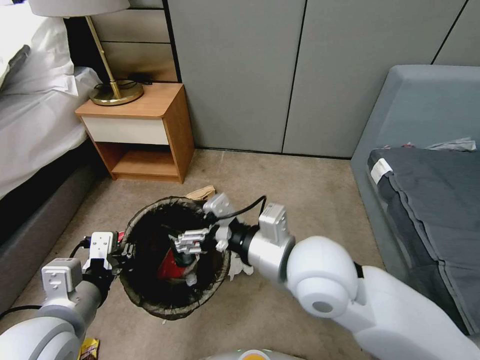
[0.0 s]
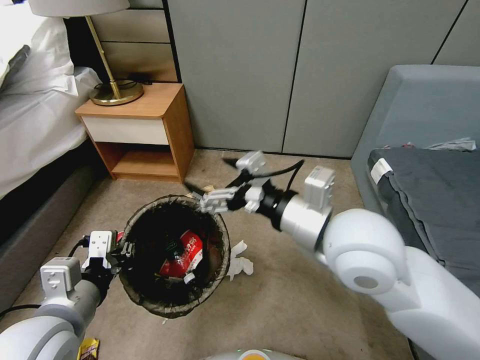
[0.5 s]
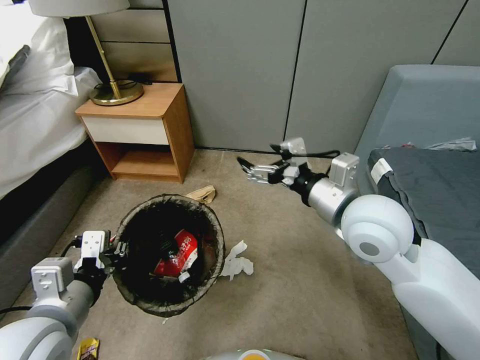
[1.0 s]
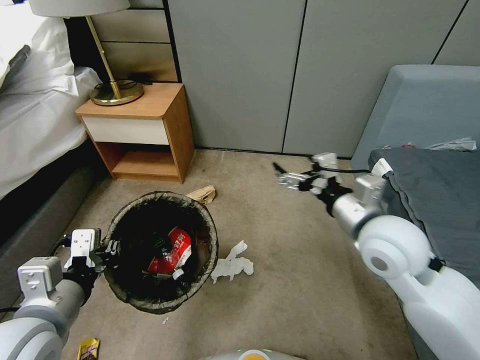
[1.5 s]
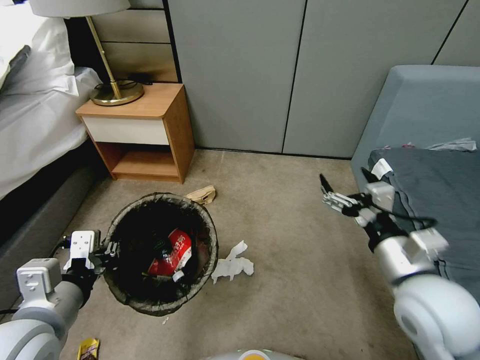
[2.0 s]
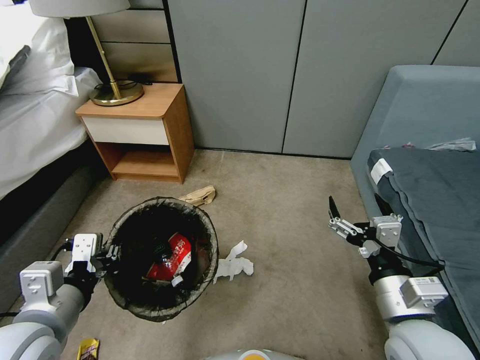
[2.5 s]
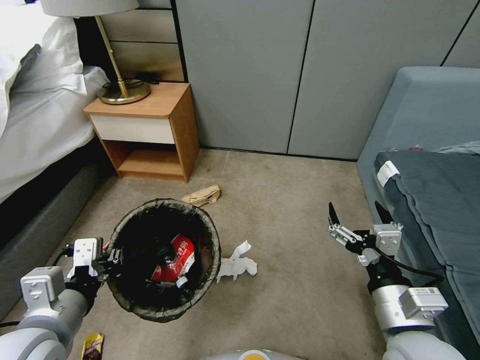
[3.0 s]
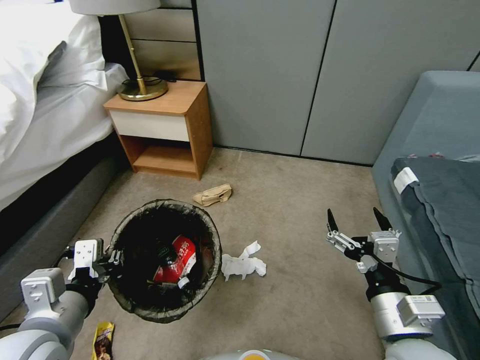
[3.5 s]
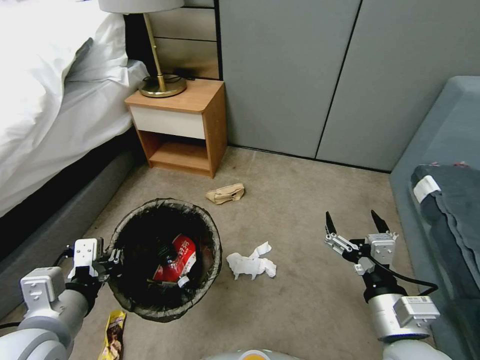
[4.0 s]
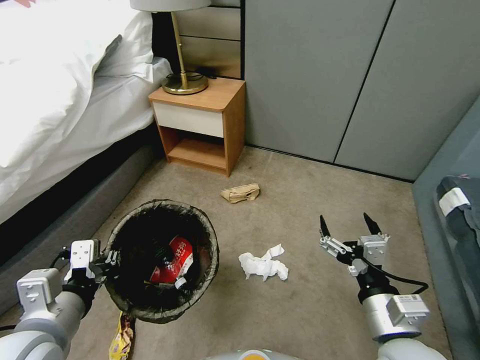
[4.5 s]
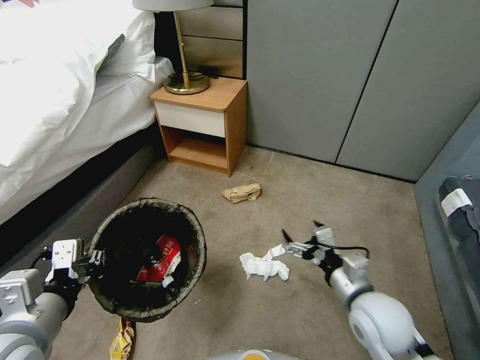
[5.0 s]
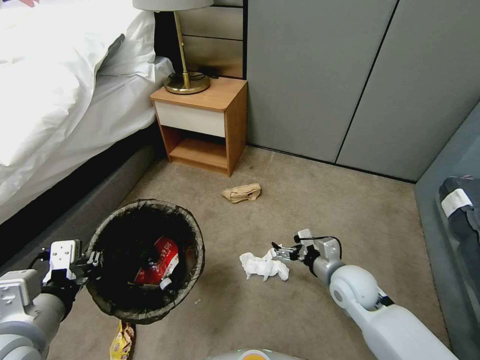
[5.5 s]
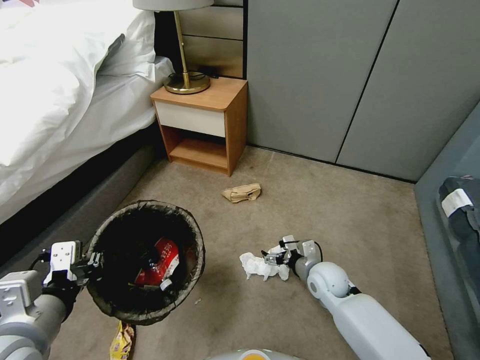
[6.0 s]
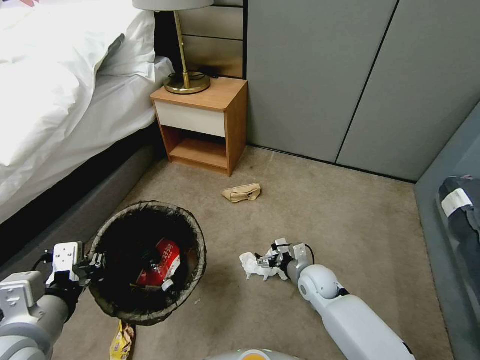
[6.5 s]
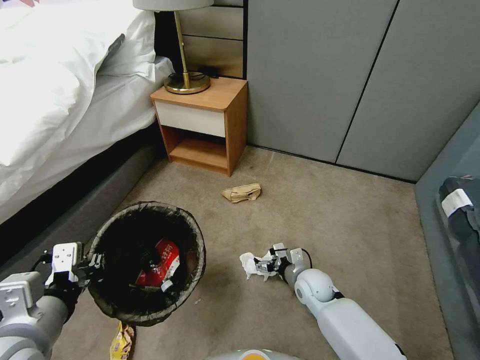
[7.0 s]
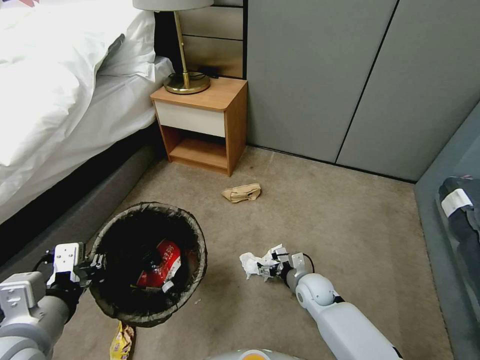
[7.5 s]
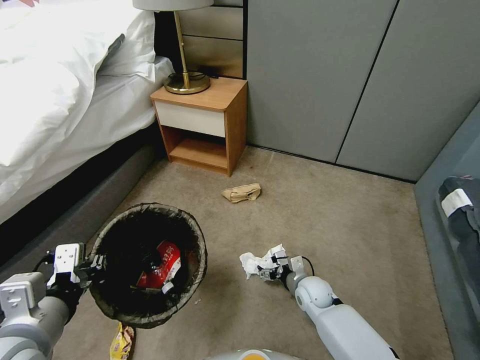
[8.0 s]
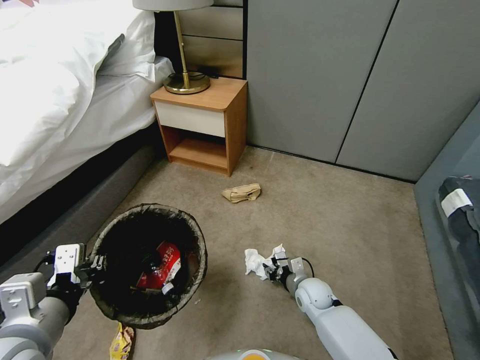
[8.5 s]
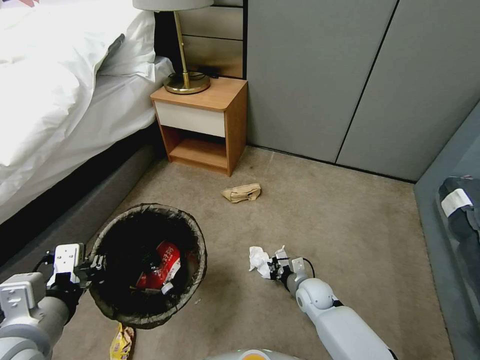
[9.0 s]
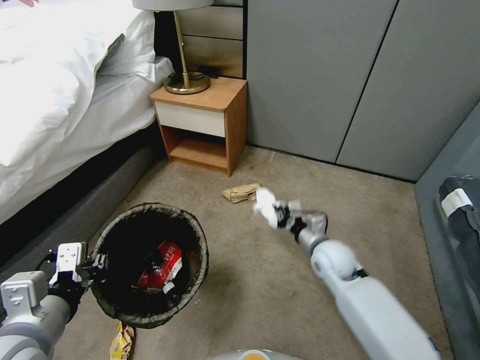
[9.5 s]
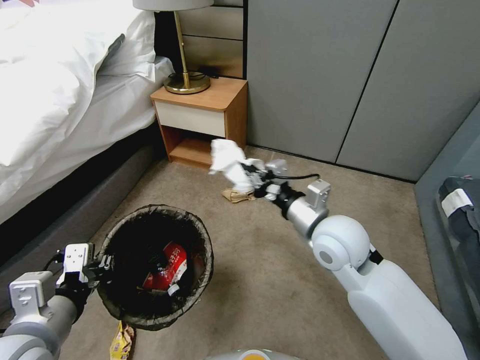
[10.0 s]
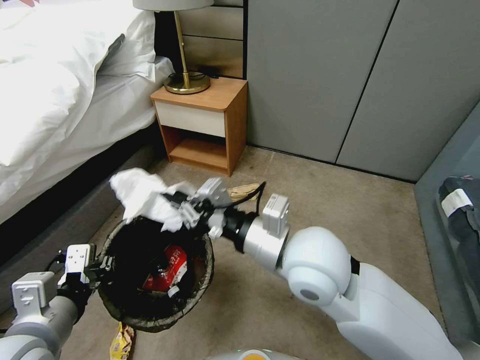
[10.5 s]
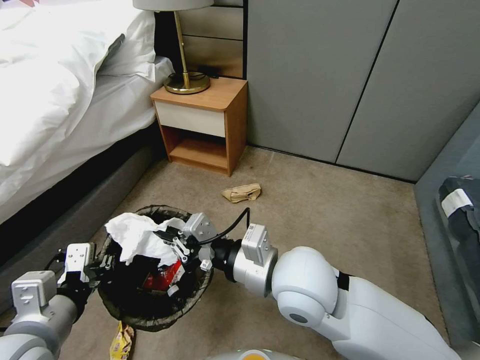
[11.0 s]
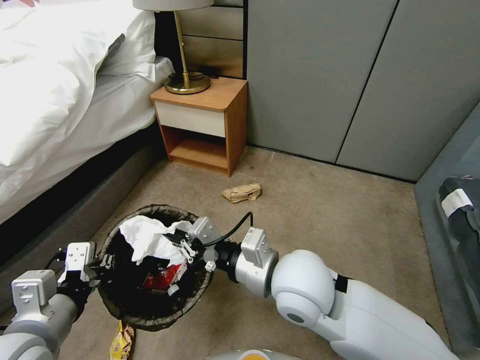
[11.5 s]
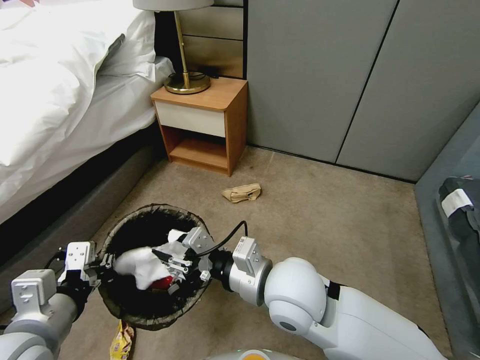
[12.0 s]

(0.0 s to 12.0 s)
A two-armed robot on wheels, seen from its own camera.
Task of the whole recording: Pick up the trash bin, then pick up the garbage from the floor and place it into the trash bin.
0.0 s - 2.0 s: The right gripper moves to the right, some 20 cm.
2.0 s - 4.0 s: The right gripper shifts roughly 10 cm backward and downward.
4.0 s - 6.0 s: The right gripper travels forward and downward by roughly 25 cm.
6.0 s - 8.0 s: The right gripper travels downward by some 10 cm.
8.0 s - 10.0 s: The right gripper is displaced upward by some 30 cm, and closes.
10.0 s - 12.0 s: The right gripper travels to the left and backward by approximately 15 cm, and opens its fingers.

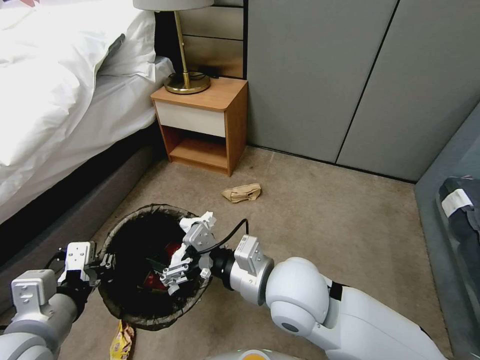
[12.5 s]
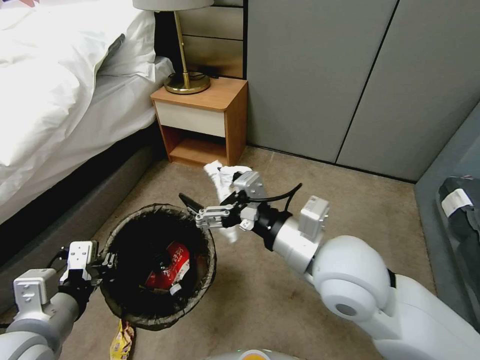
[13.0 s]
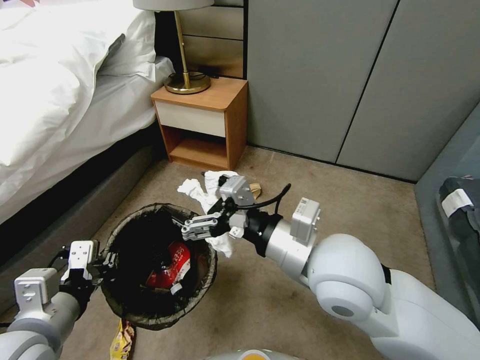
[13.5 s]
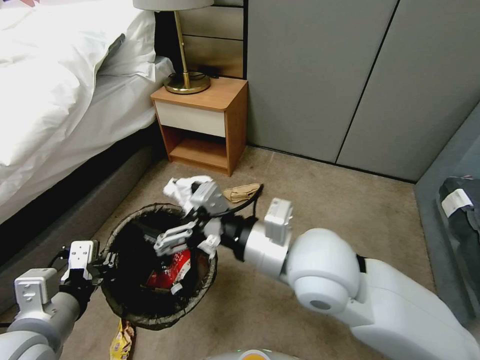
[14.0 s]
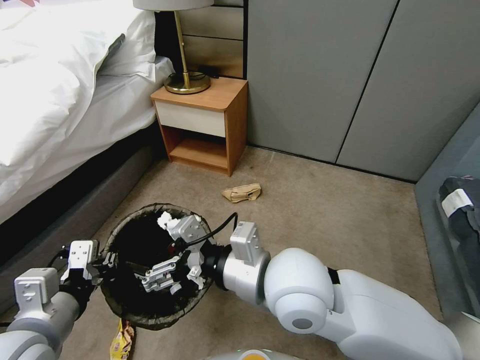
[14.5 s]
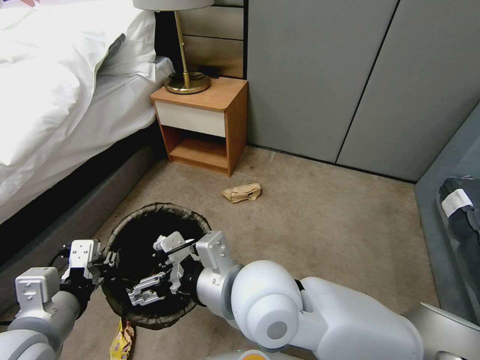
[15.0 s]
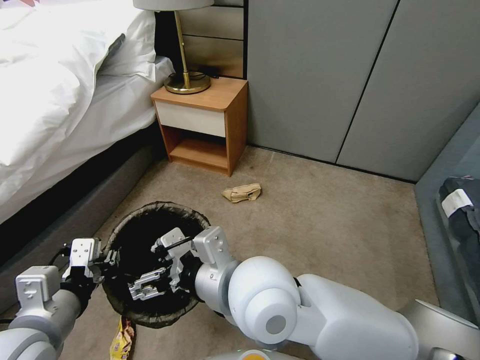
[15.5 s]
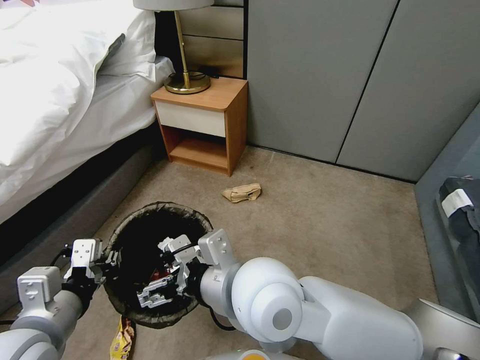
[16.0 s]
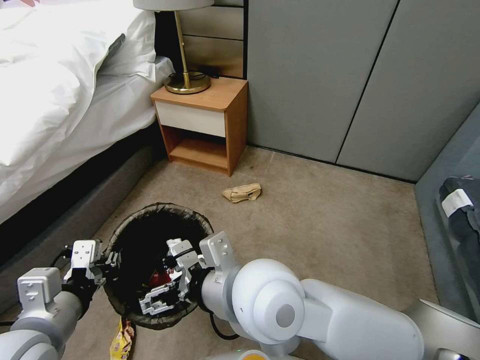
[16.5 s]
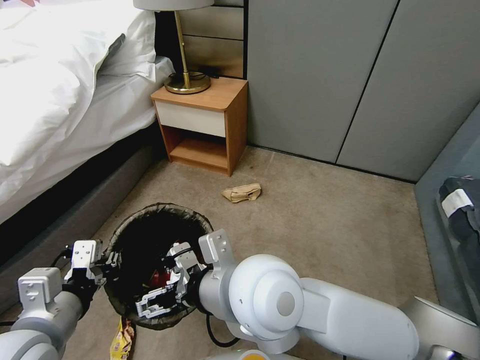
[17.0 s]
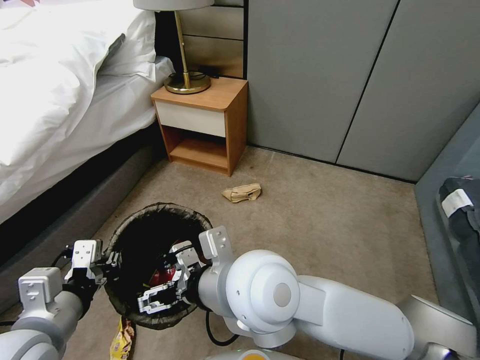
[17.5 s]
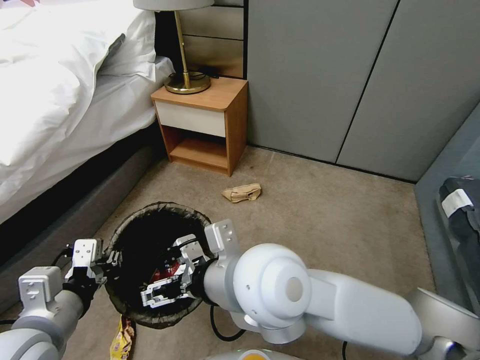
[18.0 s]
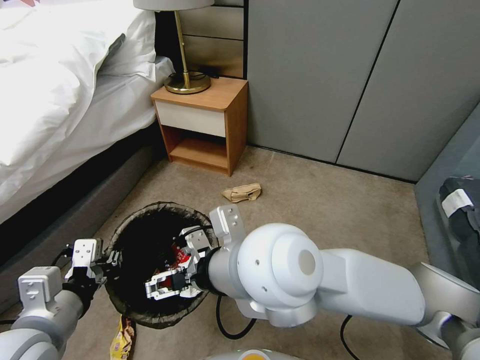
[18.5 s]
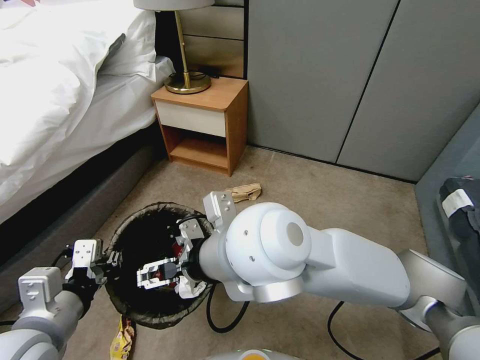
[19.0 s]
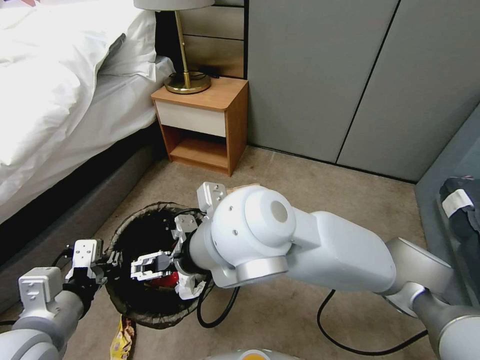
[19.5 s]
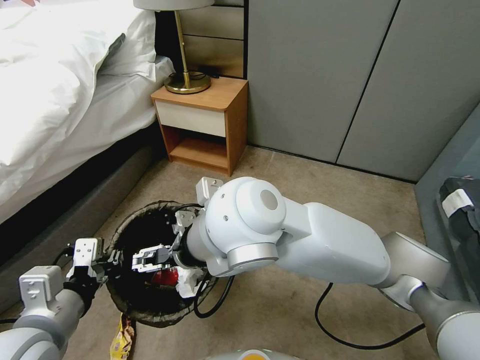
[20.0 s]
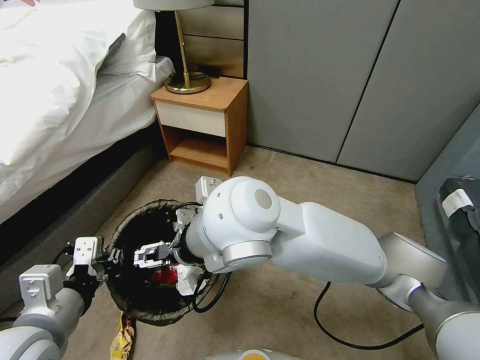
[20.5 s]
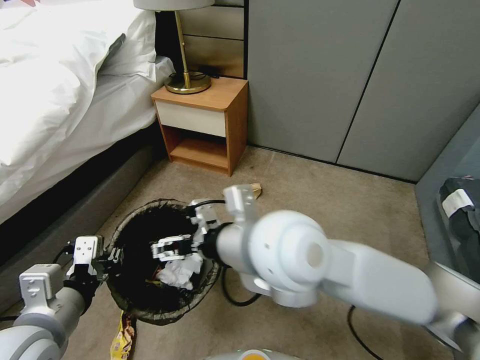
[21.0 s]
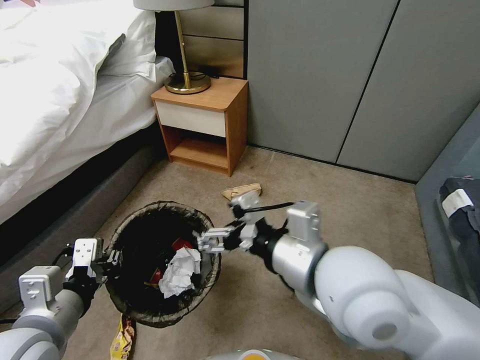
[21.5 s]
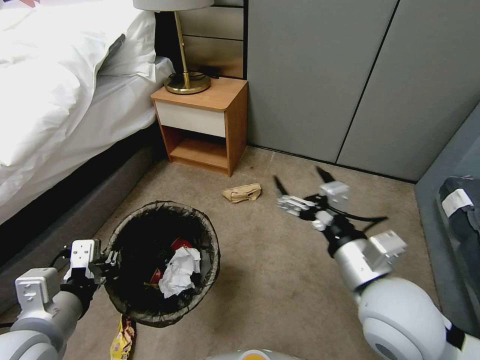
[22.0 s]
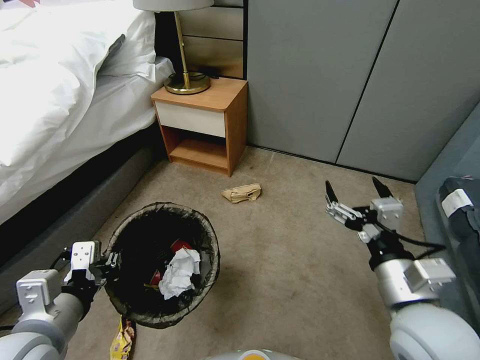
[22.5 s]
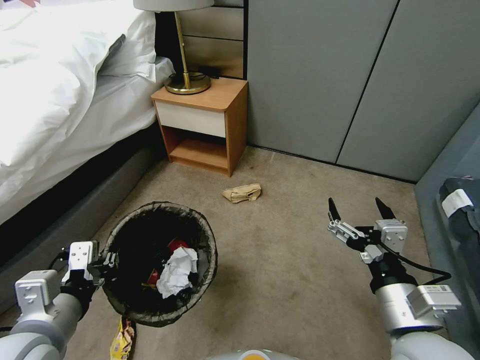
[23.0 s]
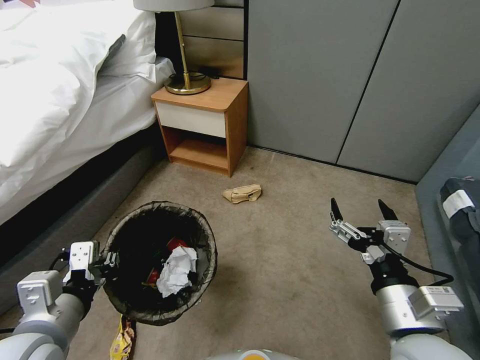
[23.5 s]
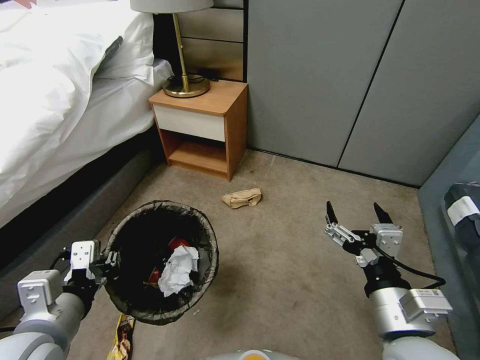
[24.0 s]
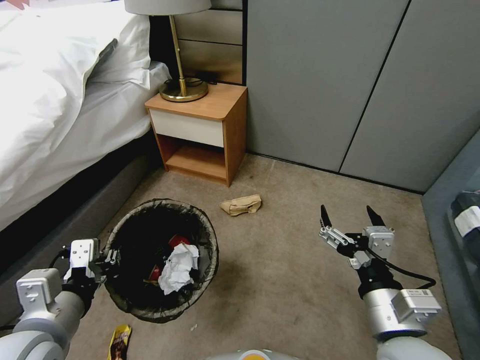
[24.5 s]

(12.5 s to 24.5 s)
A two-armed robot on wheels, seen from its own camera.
Task of the whole recording: Pick up the trash bin, then pick up the garbage from the floor and place it into the trash bin.
16.5 s - 18.5 s: The right gripper goes about 5 cm upward.
18.5 s - 20.5 s: The right gripper changes place by some 5 cm.
20.5 s - 22.5 s: The right gripper moves to the right, downward and backward, about 30 cm.

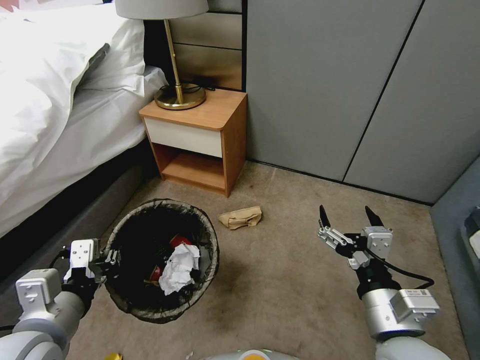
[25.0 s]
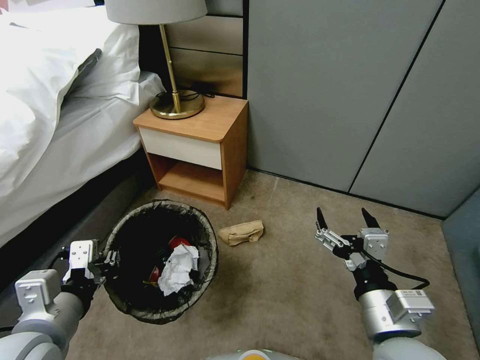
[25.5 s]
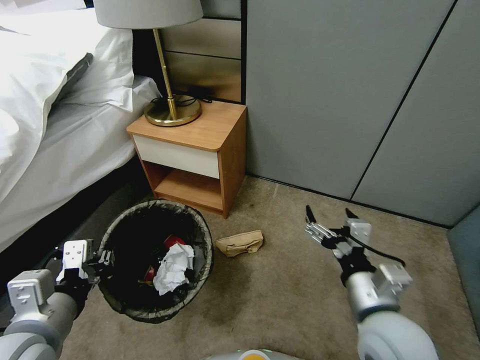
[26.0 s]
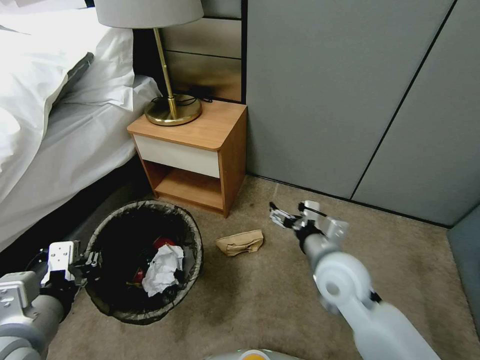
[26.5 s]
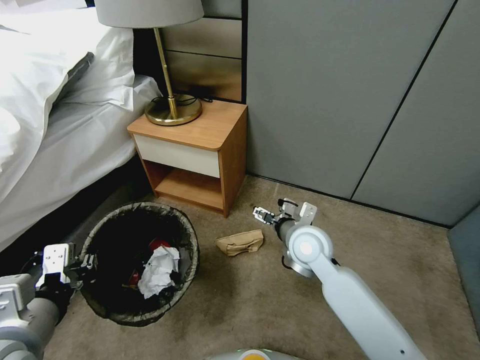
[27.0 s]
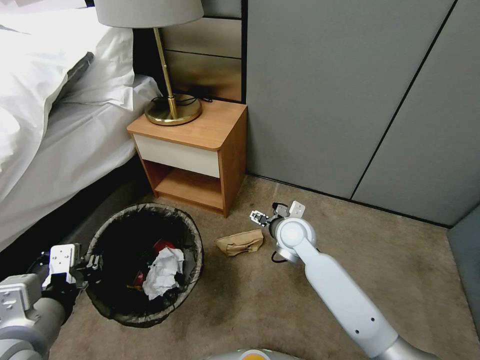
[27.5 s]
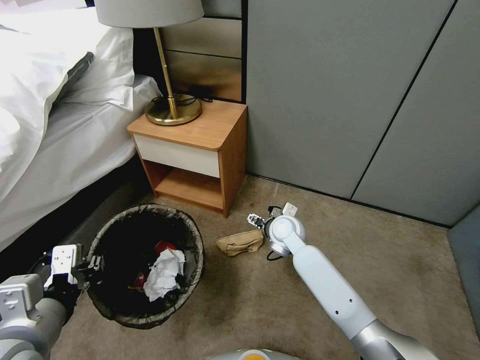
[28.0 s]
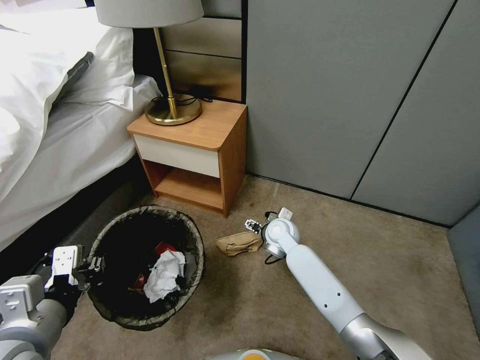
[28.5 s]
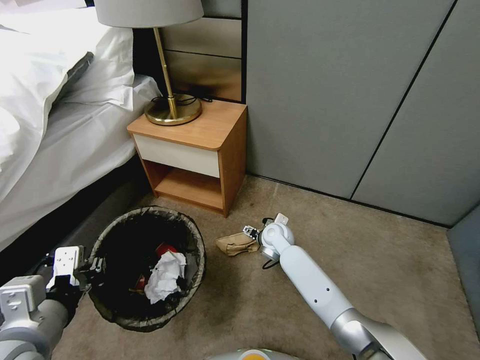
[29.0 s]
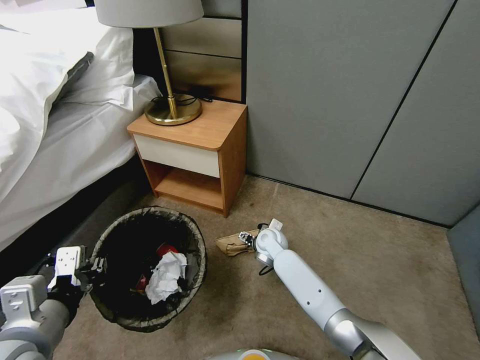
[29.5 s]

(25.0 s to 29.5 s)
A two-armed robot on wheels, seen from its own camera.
Task of the whole recording: Pick up the trash bin, then pick up the garbage from the floor and place it into the trash bin.
25.0 s - 27.0 s: The right gripper is displaced forward by some 20 cm.
27.0 s - 29.5 s: The right gripper is displaced downward and forward by roughly 20 cm.
